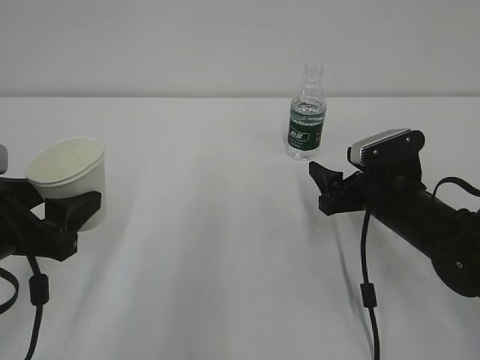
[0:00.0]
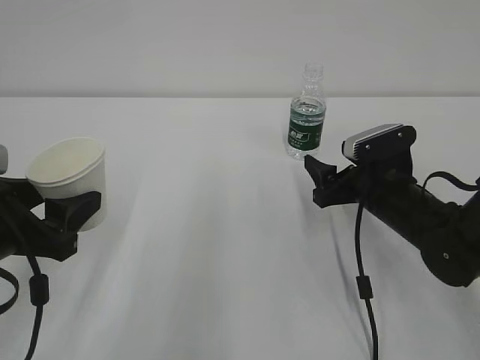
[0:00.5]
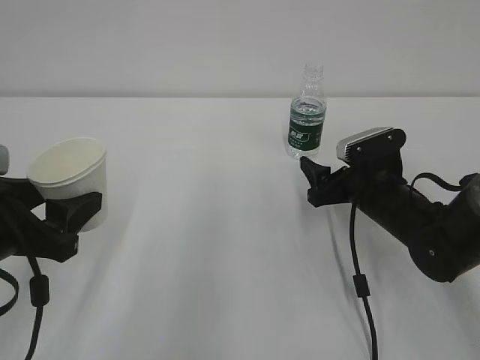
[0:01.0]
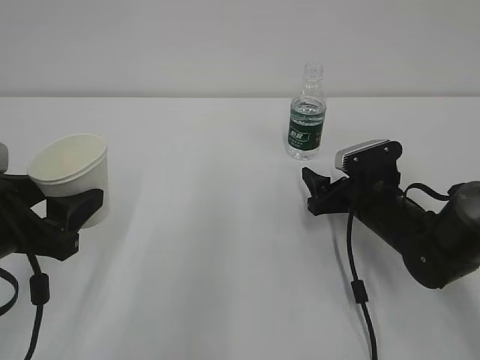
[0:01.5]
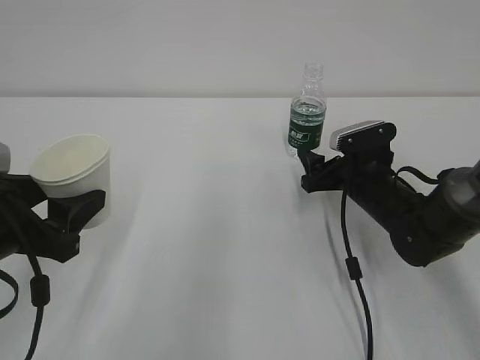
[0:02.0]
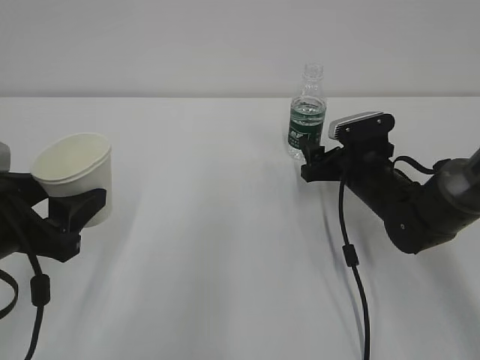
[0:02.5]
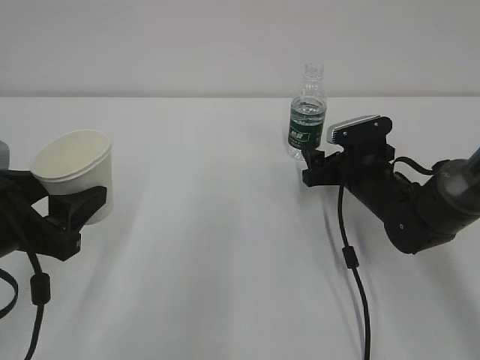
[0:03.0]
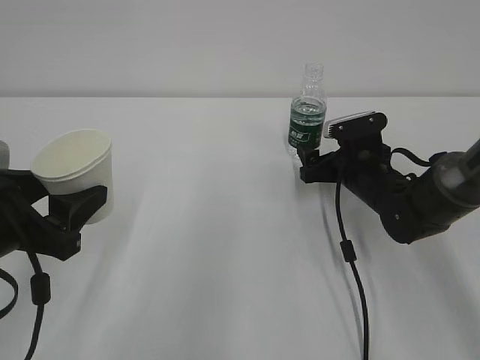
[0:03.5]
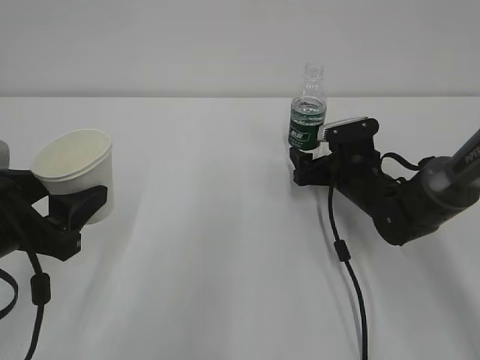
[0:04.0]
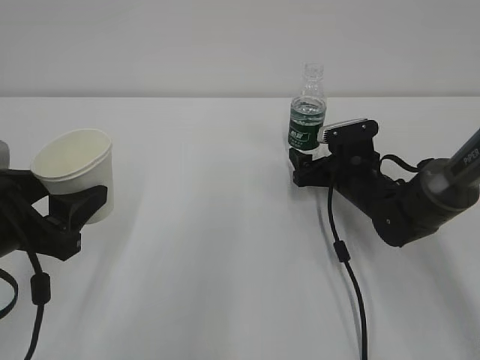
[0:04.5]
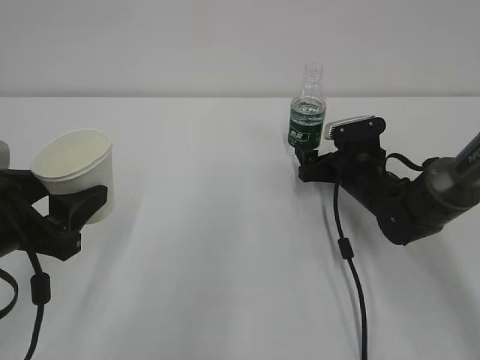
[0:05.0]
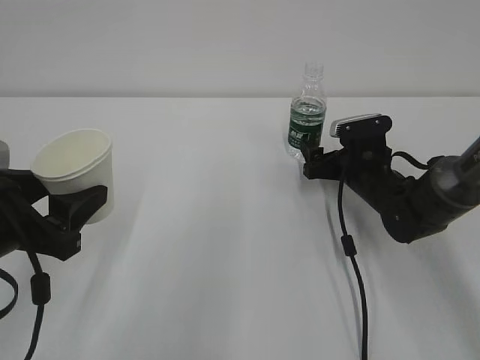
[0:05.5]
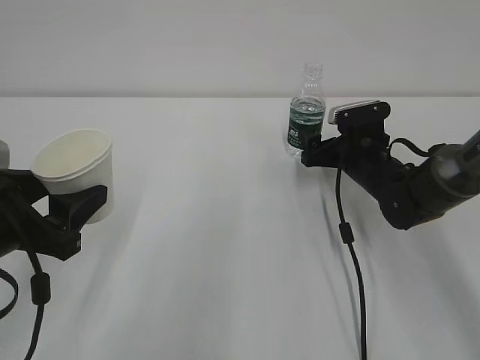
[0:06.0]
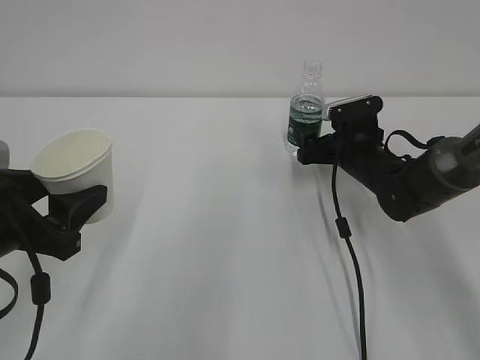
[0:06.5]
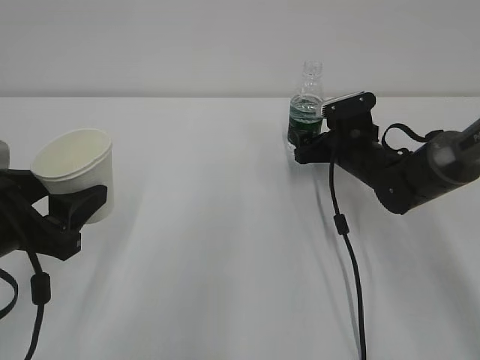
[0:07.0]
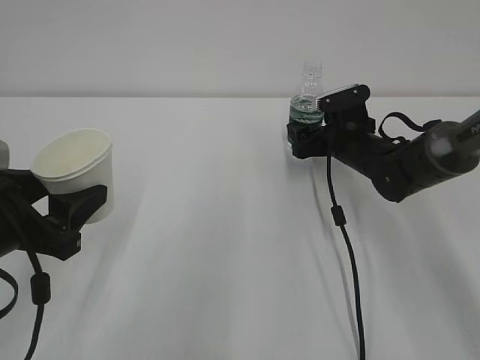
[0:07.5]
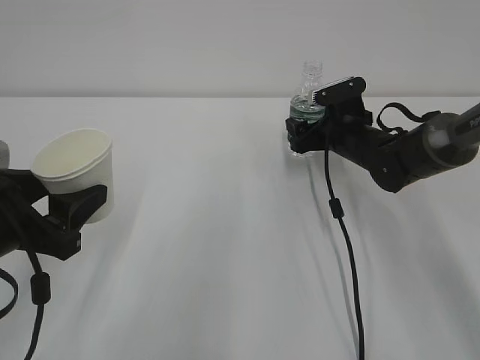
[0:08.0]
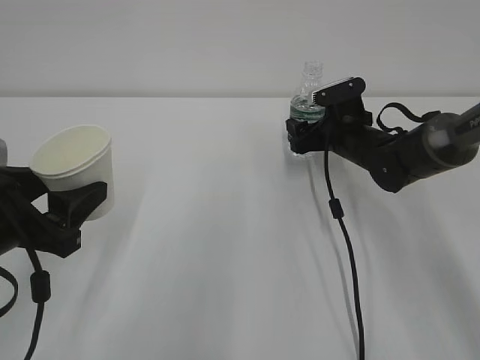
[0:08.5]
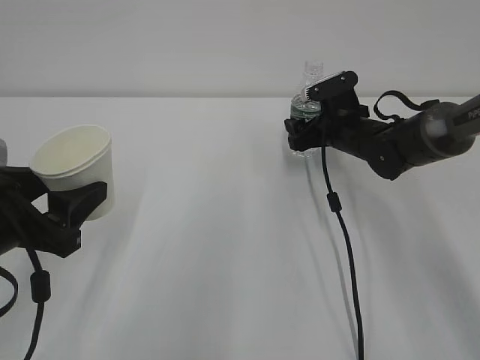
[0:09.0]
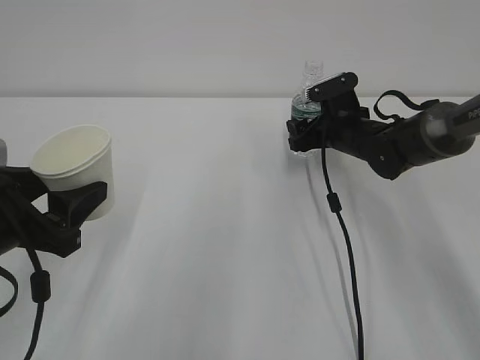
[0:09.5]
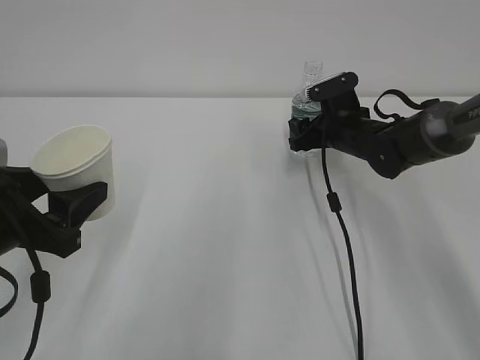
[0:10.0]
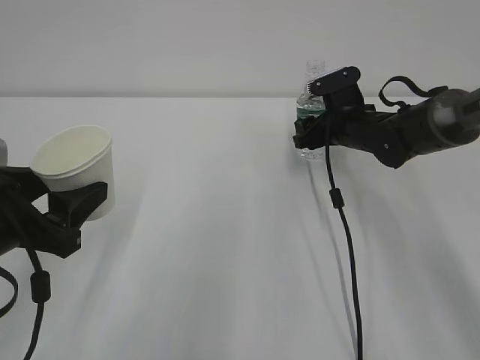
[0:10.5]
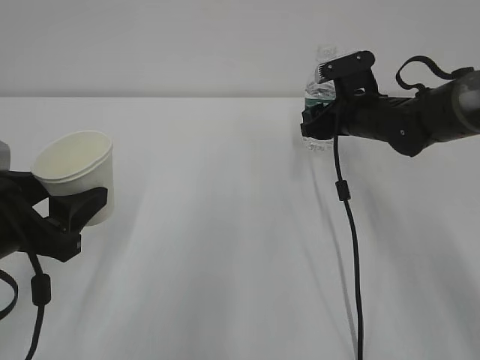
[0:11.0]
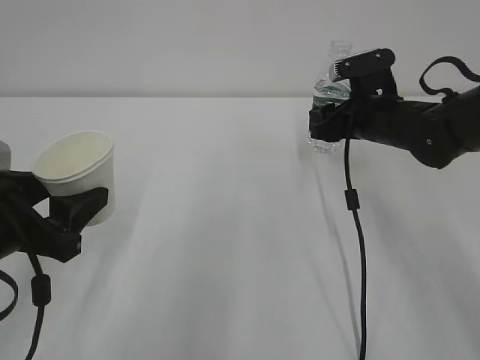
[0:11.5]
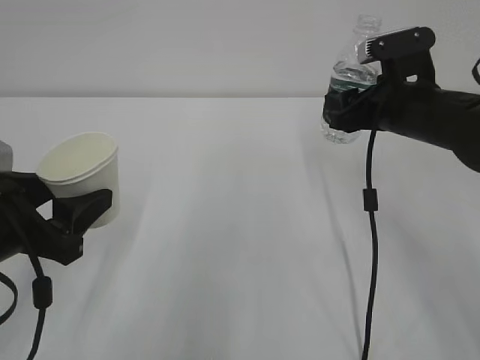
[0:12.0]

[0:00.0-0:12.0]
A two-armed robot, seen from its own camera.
0:00.0 to 0:02.0: The right gripper goes roughly 5 cm forward.
0:02.0 to 0:06.0: The grippers stay close to where they were, moving slightly.
0:06.0 to 0:10.0: The grippers stay close to where they were, moving slightly.
0:10.0 to 0:12.0: The right gripper shifts some 15 cm backward and upward.

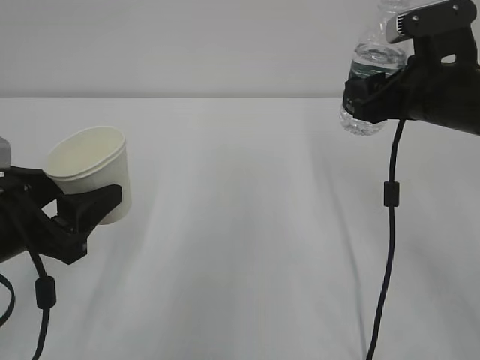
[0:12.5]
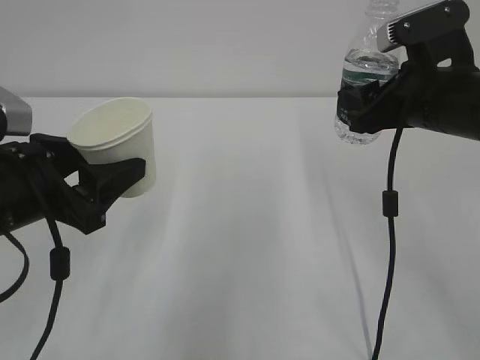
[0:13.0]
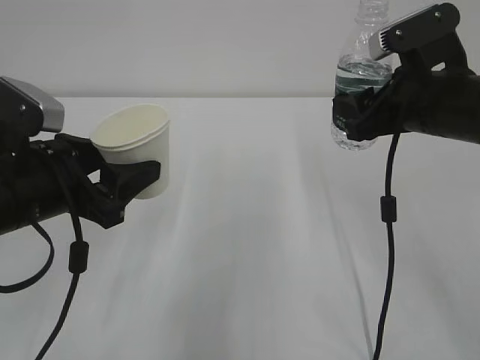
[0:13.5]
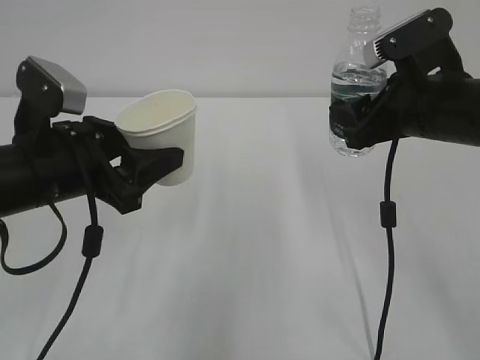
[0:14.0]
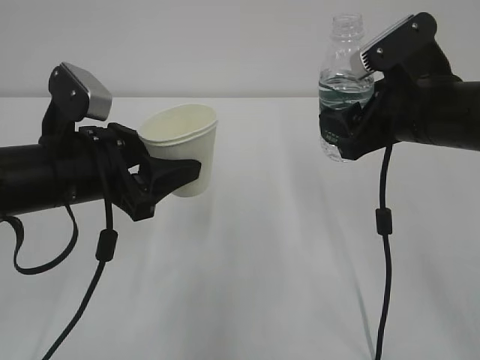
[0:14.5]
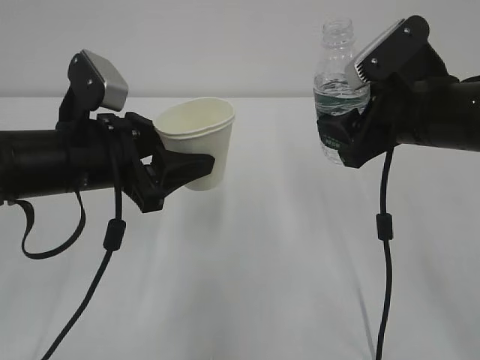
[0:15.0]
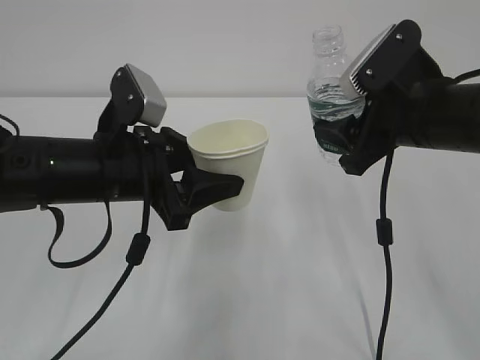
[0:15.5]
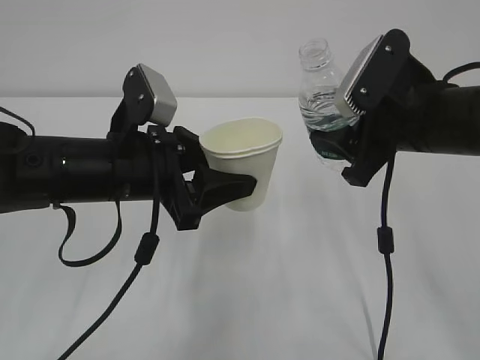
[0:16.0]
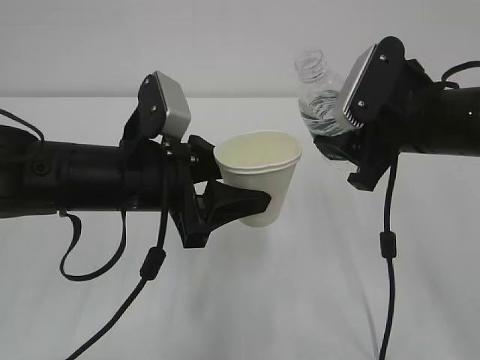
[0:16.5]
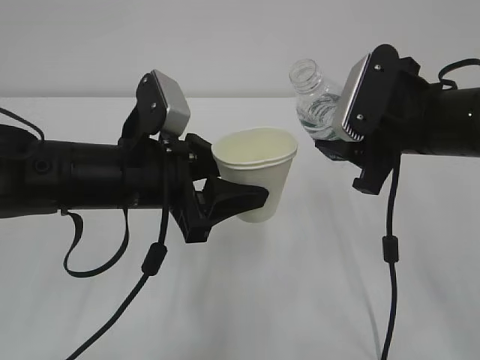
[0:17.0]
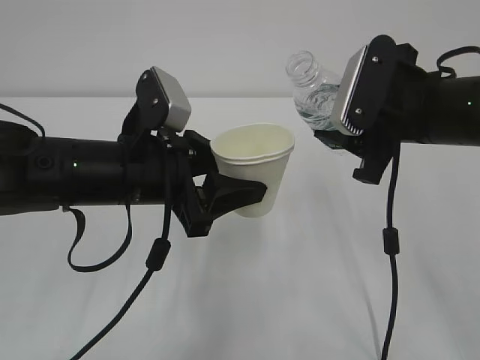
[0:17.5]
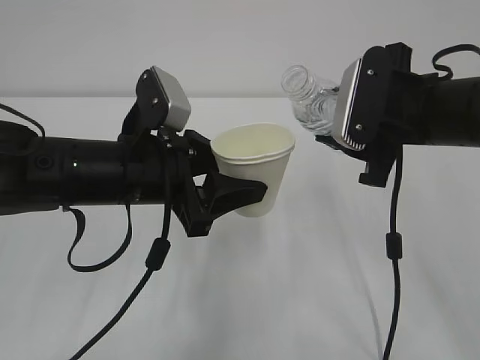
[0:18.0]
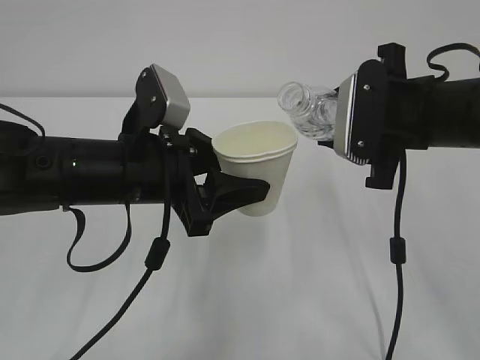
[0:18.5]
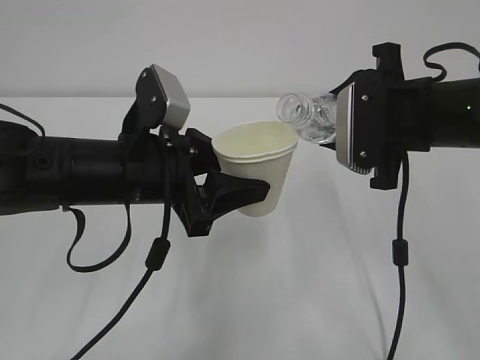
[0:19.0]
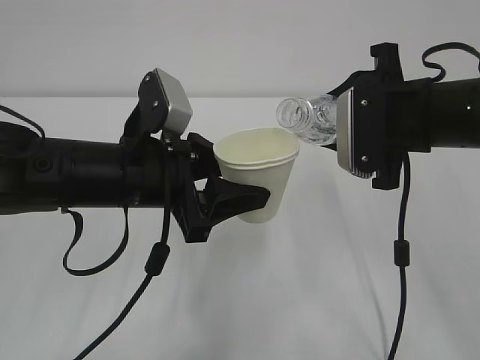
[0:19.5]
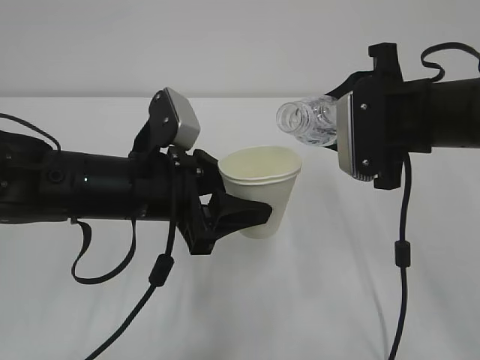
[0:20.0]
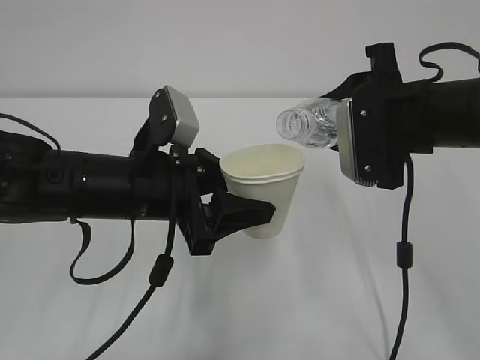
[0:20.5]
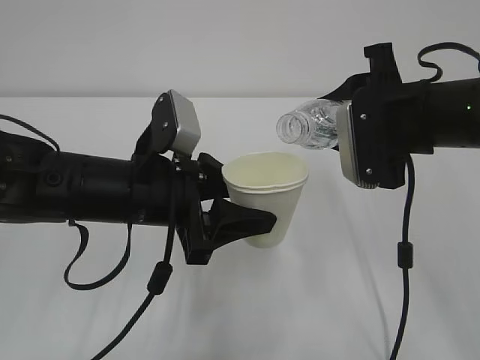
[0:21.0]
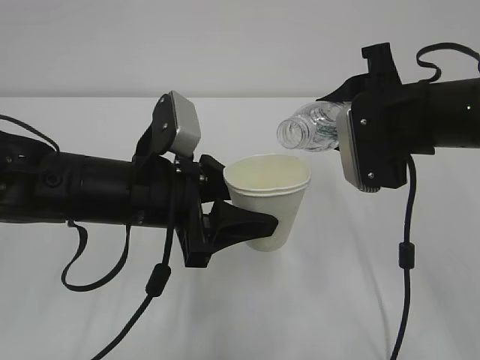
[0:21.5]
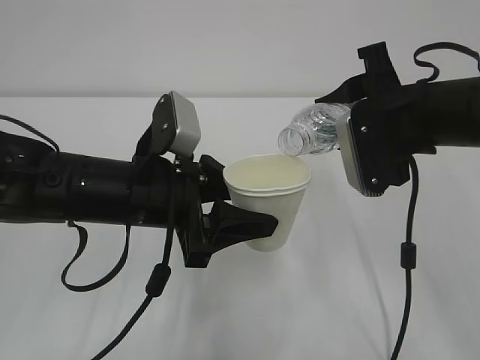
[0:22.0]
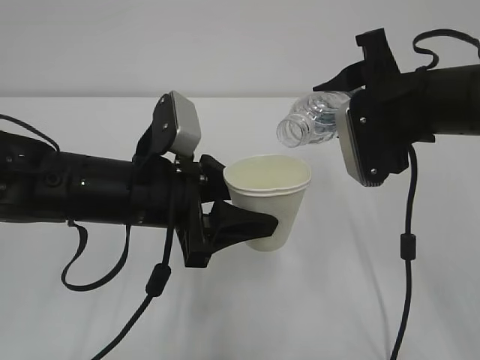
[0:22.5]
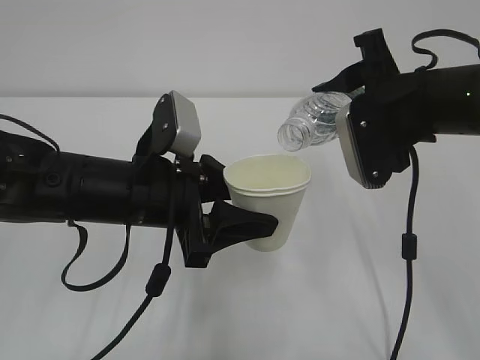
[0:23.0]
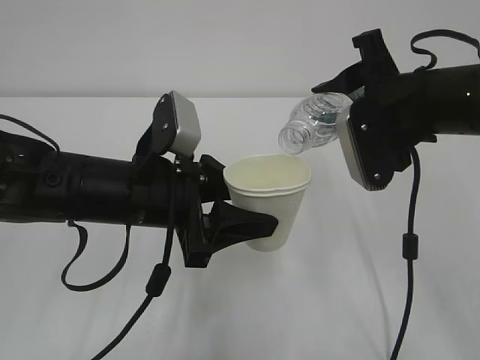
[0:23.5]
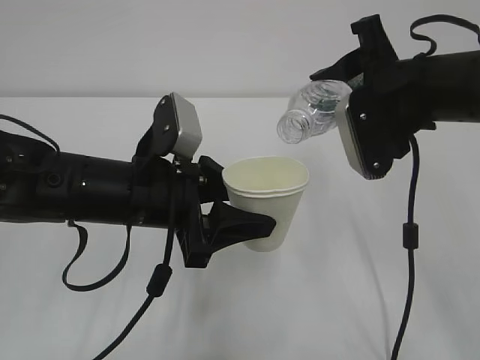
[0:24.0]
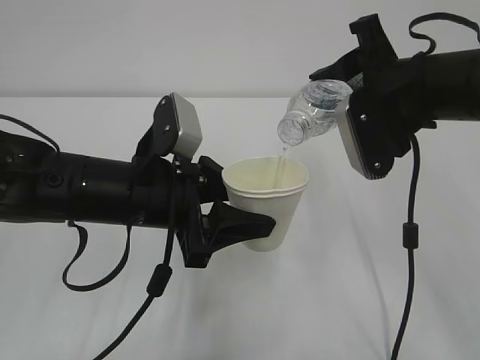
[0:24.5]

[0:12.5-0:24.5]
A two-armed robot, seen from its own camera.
0:12.5 to 0:14.5: The left gripper heads forward and to the right, covering some 10 cm.
0:14.5 to 0:16.5: The left gripper shifts some 5 cm to the right.
0:18.5 to 0:20.5: The grippers stay close to where they were, moving slightly.
0:20.5 to 0:22.5: The grippers stay close to where they were, moving slightly.
0:22.5 to 0:24.5: There are only small adjustments of the grippers.

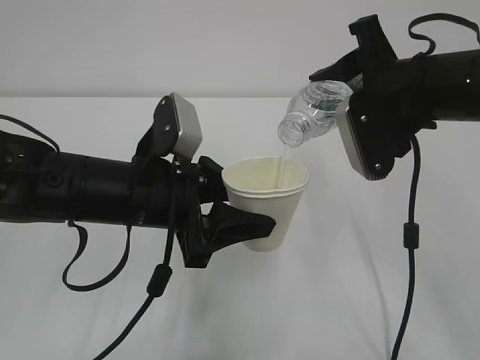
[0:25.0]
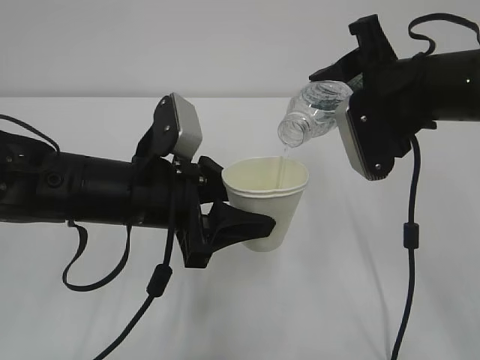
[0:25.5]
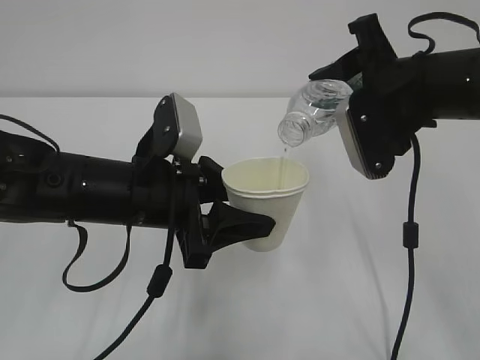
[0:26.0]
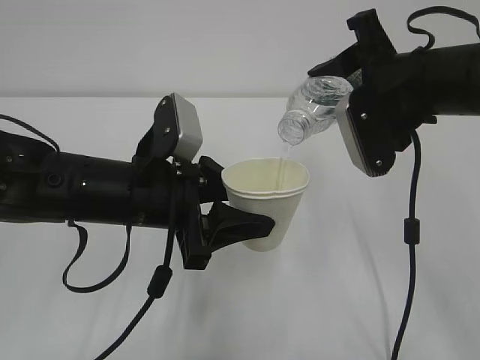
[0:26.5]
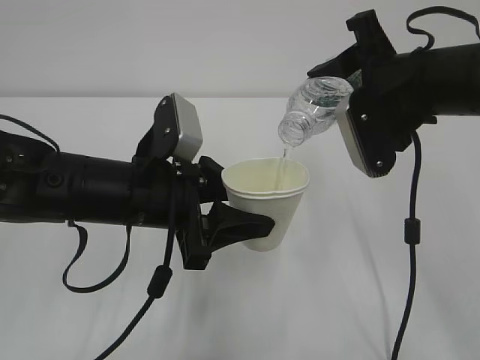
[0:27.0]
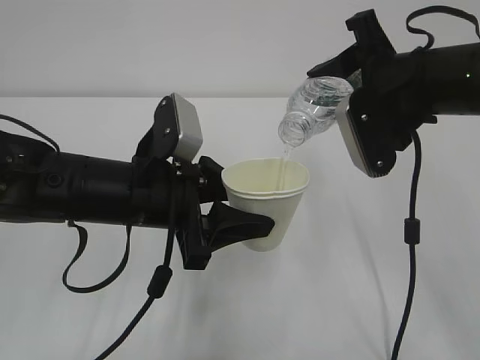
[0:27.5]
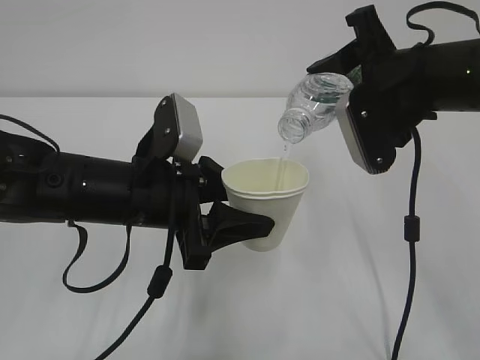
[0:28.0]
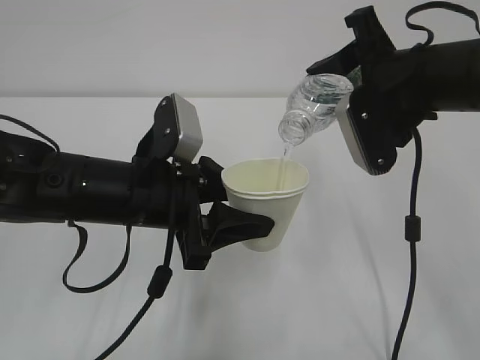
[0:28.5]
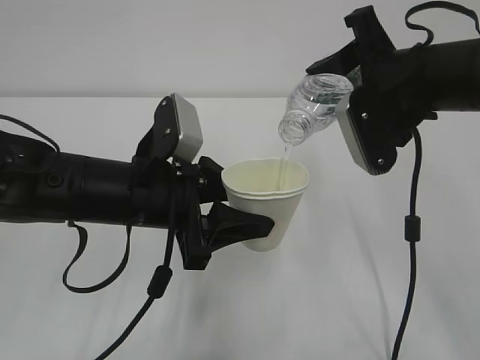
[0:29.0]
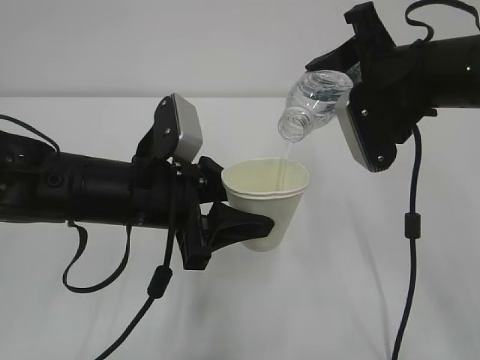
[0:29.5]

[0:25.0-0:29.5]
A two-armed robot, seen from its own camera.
0:25.0 to 0:29.5: The two grippers keep their place.
